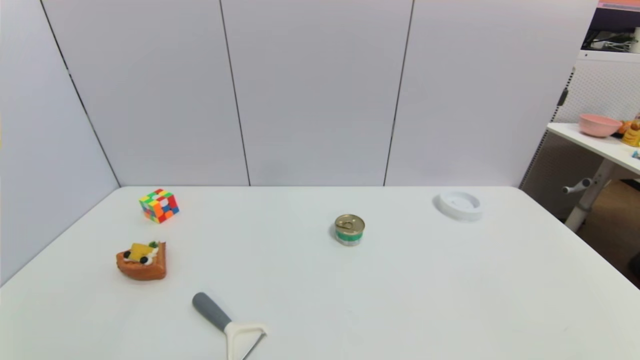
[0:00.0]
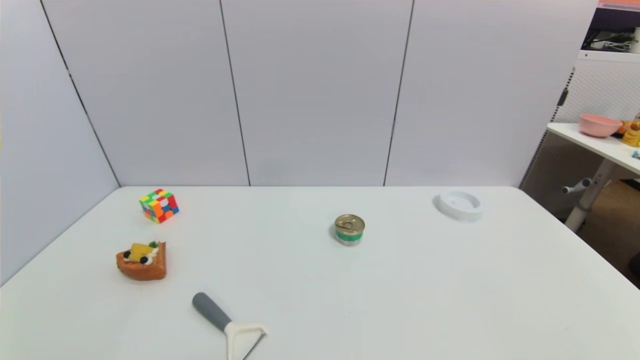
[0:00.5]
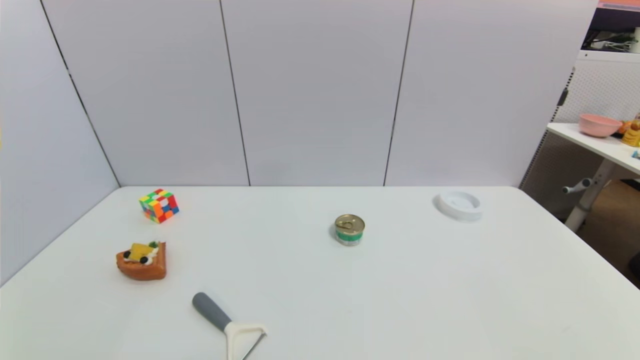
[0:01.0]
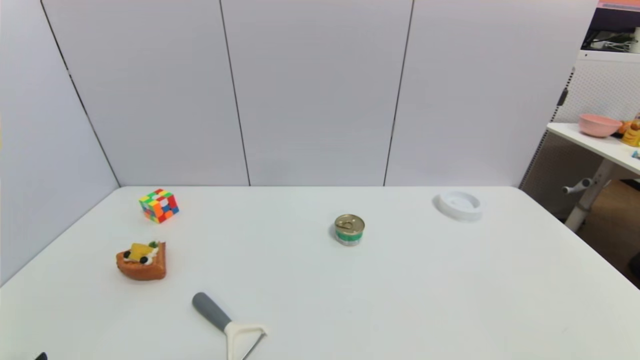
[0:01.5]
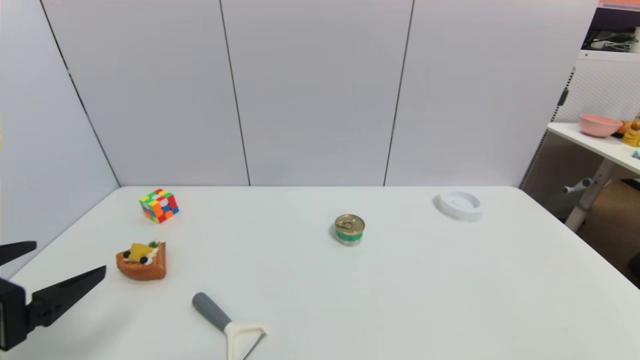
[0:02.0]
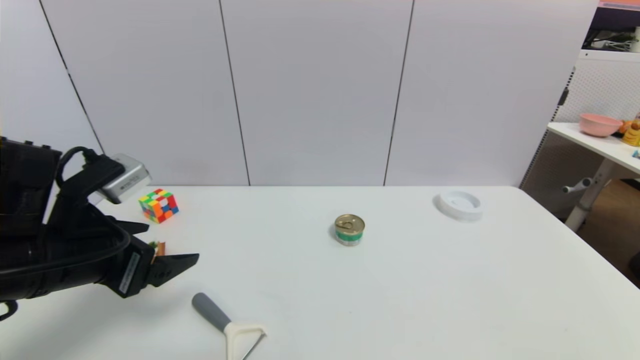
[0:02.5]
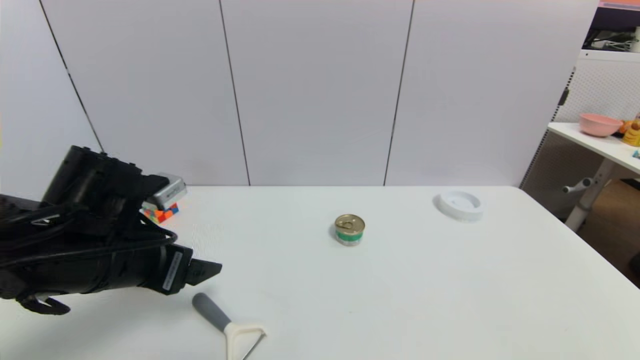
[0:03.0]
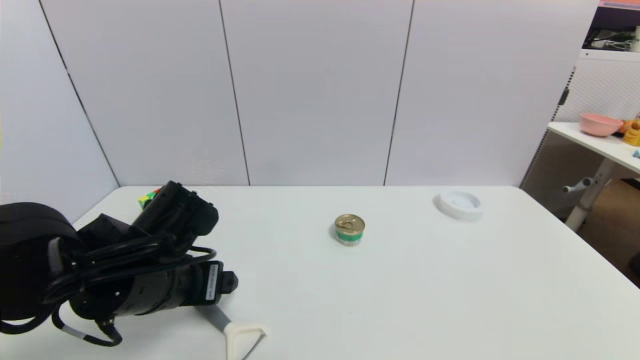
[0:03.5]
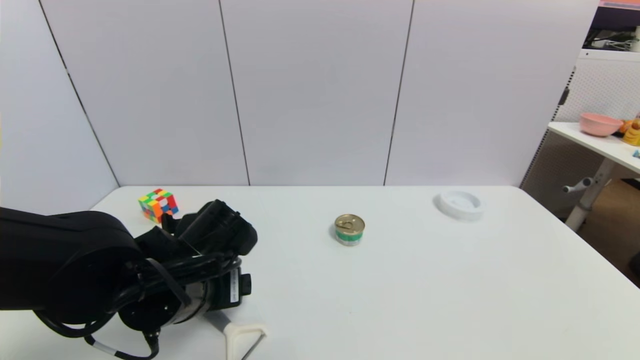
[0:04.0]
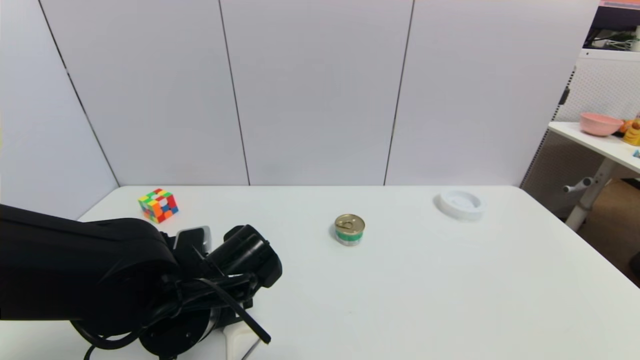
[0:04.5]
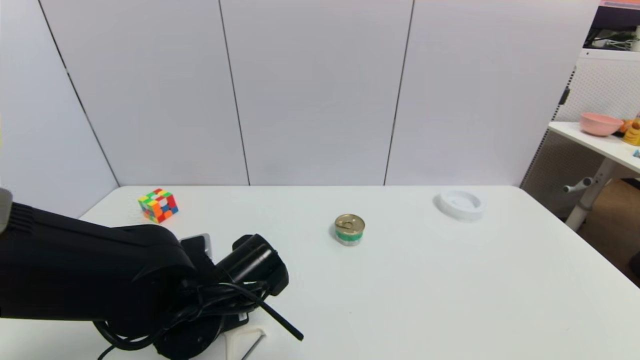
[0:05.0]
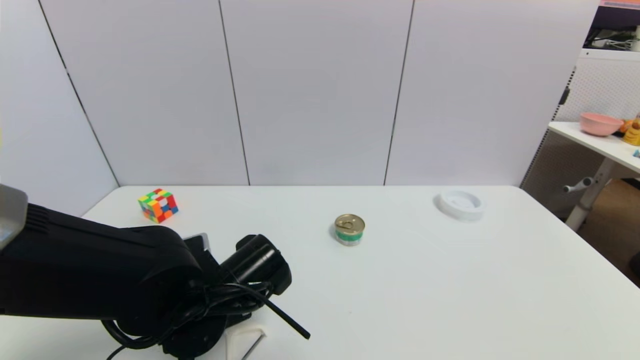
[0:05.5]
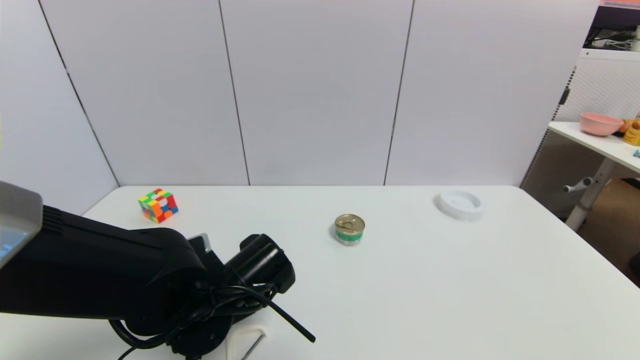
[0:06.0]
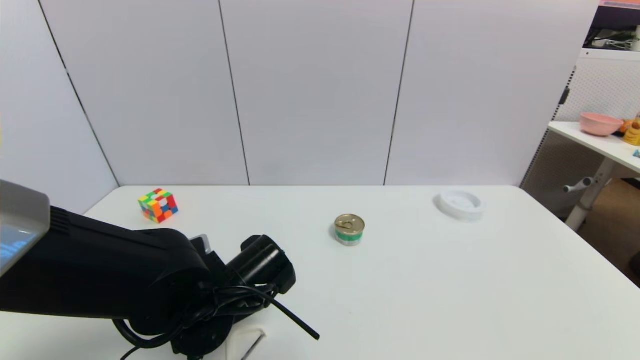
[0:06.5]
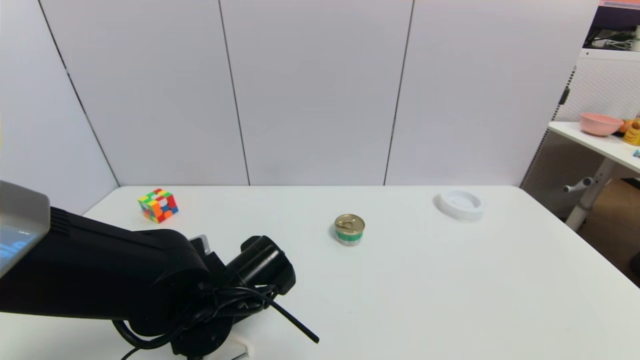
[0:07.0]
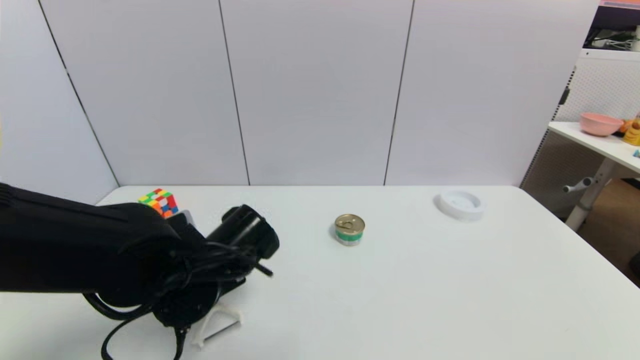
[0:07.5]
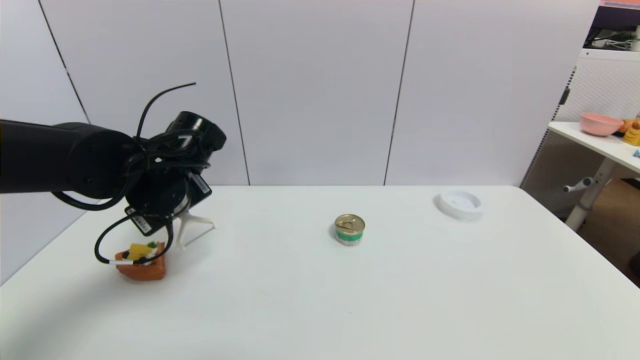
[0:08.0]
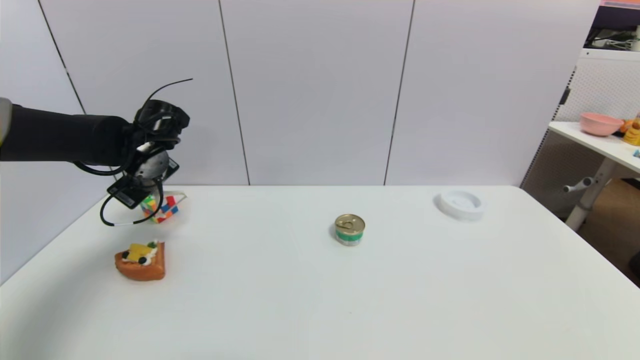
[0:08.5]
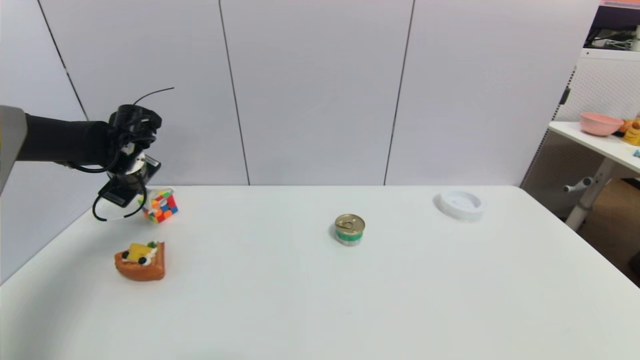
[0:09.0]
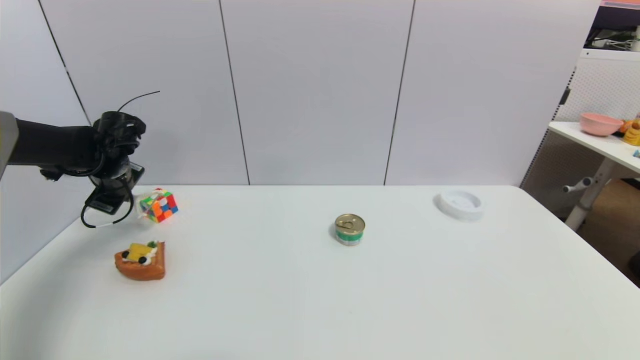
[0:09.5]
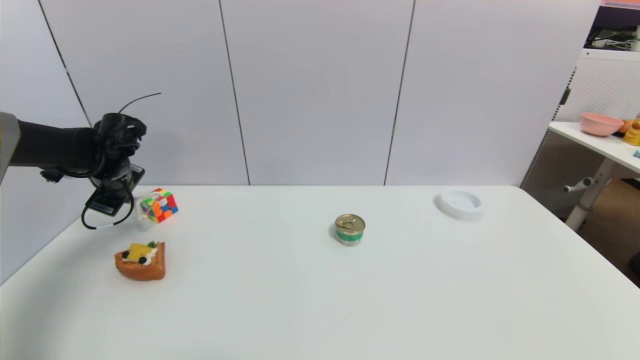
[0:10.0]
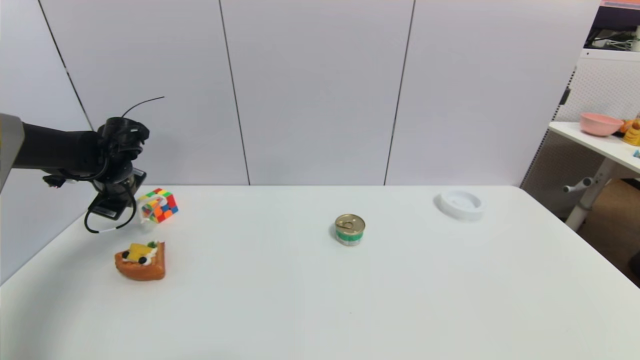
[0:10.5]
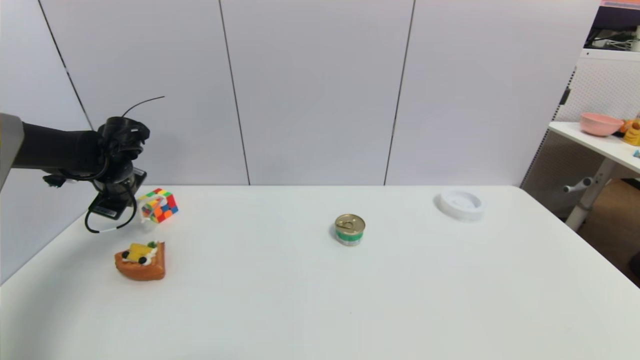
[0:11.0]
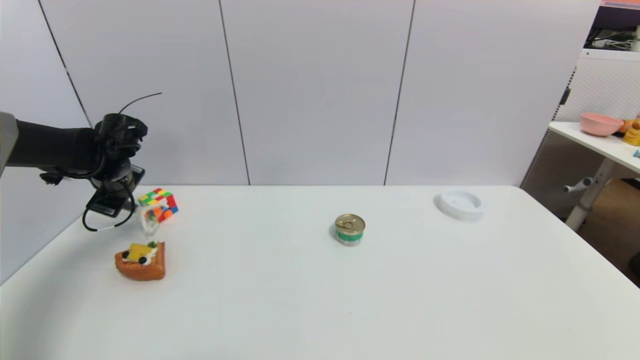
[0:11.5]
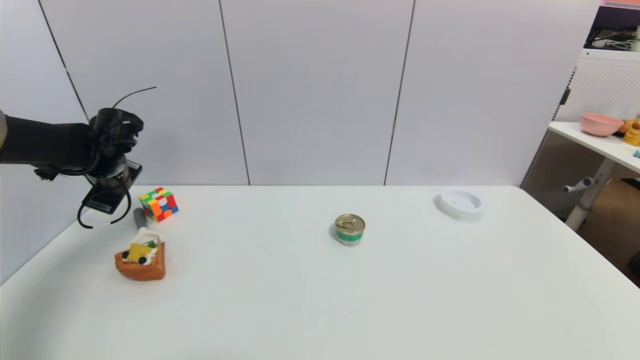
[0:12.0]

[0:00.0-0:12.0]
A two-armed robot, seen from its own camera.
Step, 0:02.0 to 0:07.0: Grasp the peeler with left gripper.
Step, 0:08.0 to 0:12.0: Place the peeler on the table with left gripper.
0:00.0 to 0:02.0: The left gripper goes about 20 cm upward and forward.
0:02.0 to 0:04.0: The left gripper shifts about 20 cm to the right, forward and downward.
0:04.0 to 0:06.0: The grippers move only a little.
0:06.0 to 0:08.0: The left gripper heads forward, upward and to the left, covering approximately 15 cm, and closes.
0:08.0 to 0:10.0: The left gripper travels to the left and forward by about 20 cm.
0:10.0 to 0:12.0: The left gripper opens.

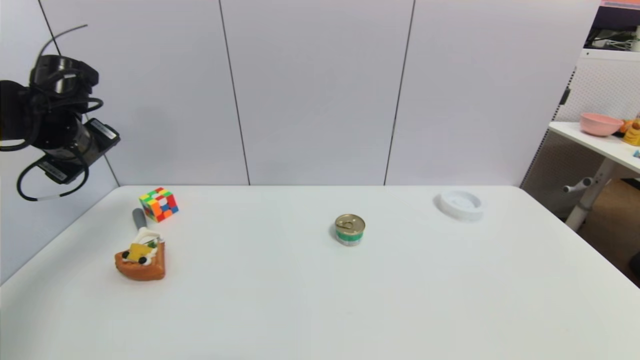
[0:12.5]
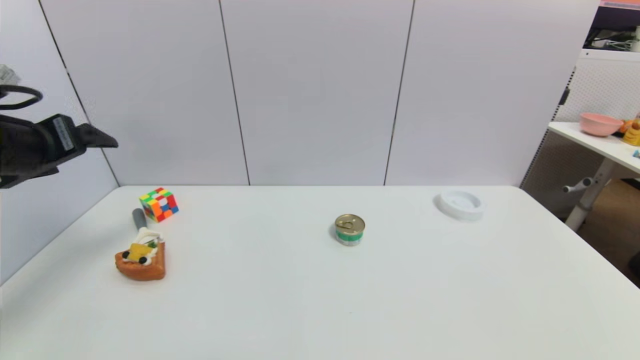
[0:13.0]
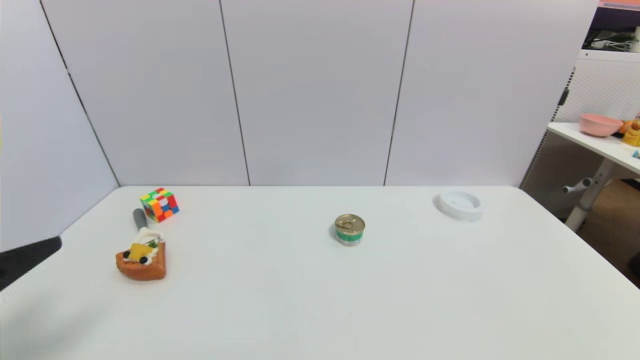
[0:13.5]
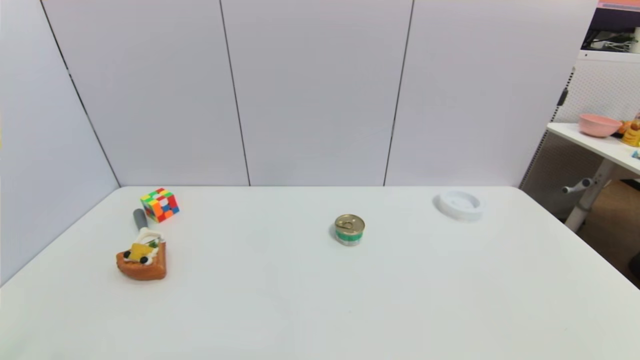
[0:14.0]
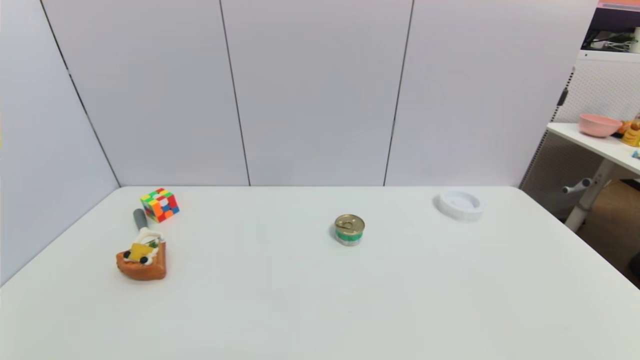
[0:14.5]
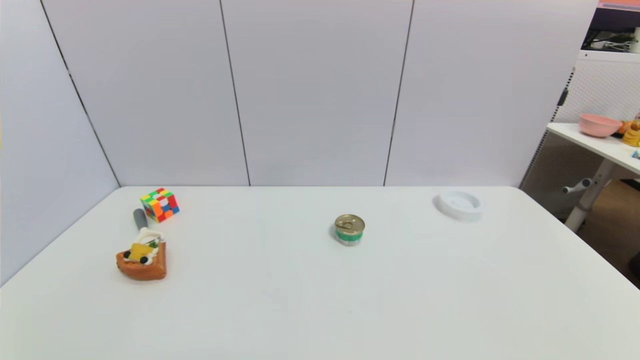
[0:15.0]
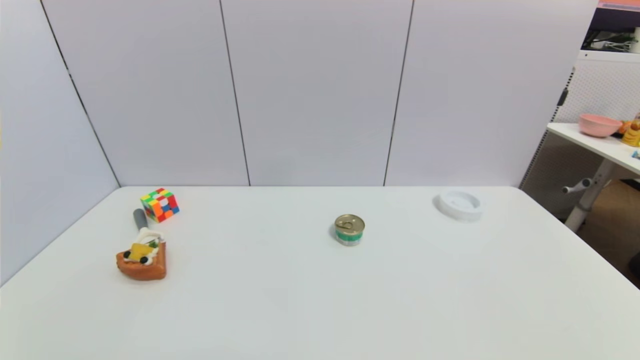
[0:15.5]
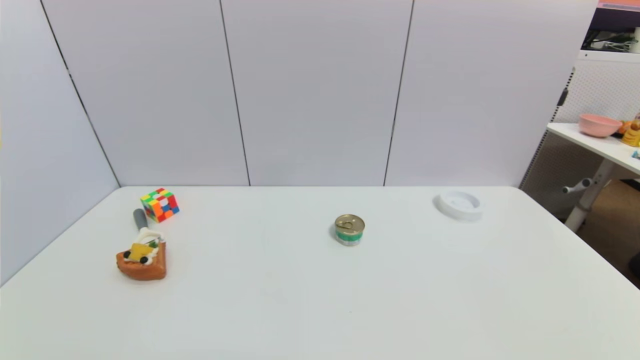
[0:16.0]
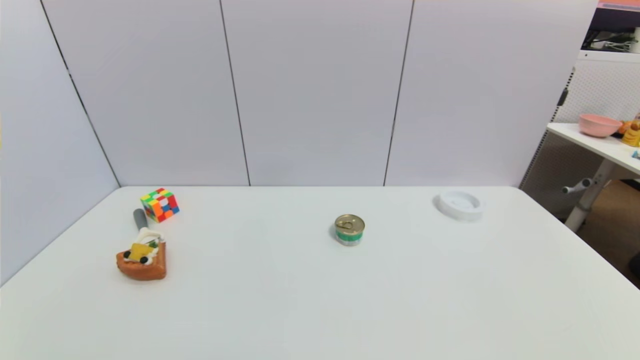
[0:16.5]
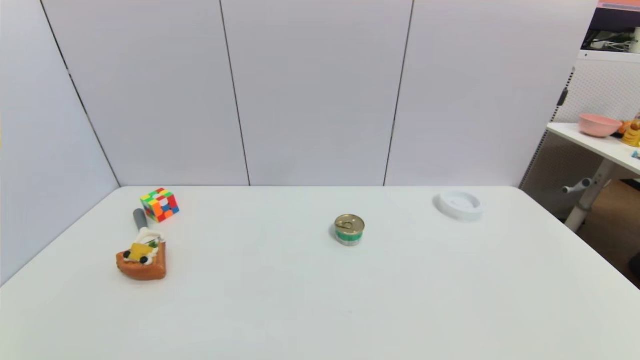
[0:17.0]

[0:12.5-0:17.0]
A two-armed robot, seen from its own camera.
0:12.5 to 0:14.5: The left gripper shifts roughly 40 cm backward.
